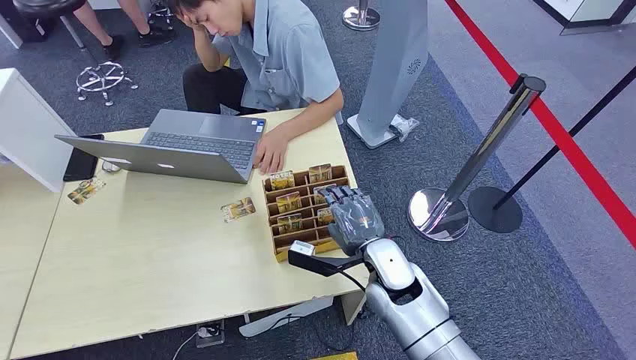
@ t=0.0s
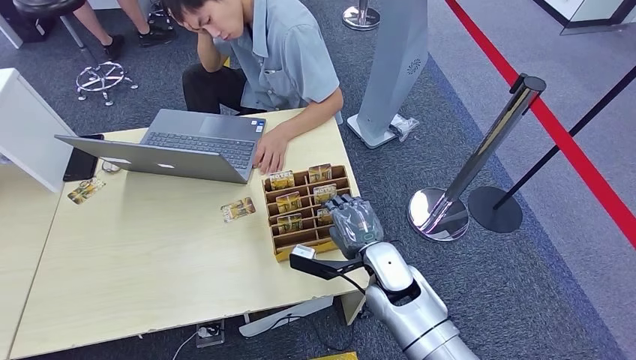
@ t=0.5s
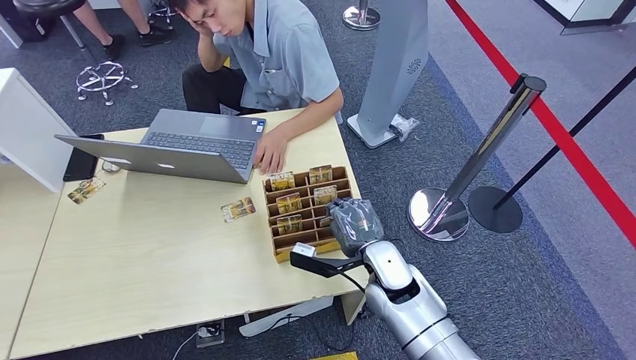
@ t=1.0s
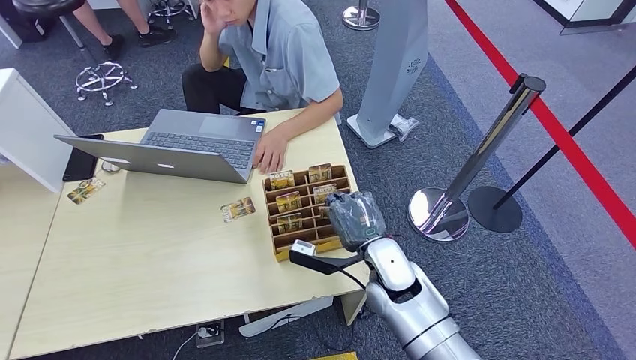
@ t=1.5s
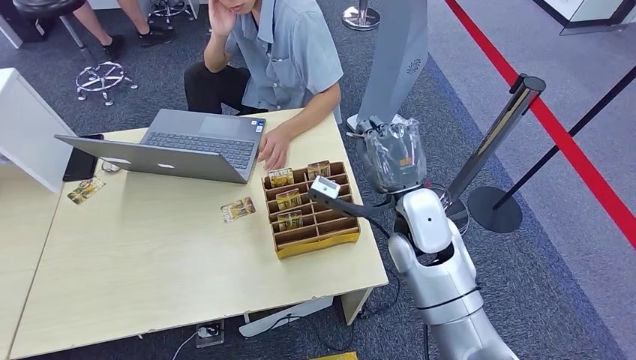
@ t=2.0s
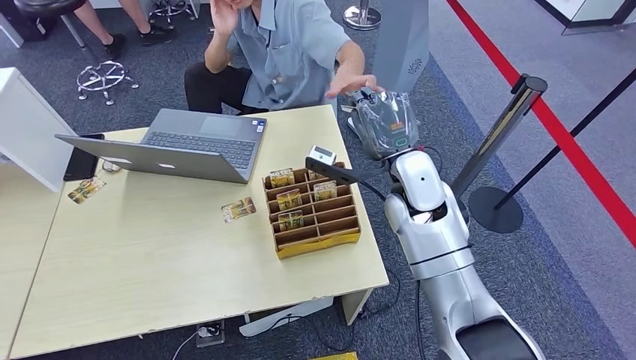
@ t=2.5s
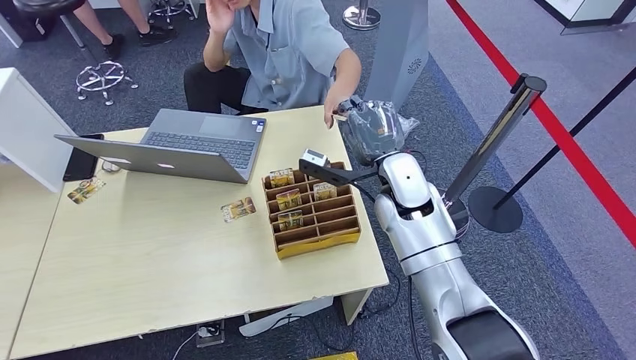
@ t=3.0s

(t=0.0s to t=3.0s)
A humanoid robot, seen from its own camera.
Step, t=0.0s - t=1.0s: Pick up the room card from the card holder.
Step, t=2.5s - t=3.0s: Hand the room card to the target.
t=1.5s - t=3.0s: The right hand moves upward and forward, about 15 cm.
